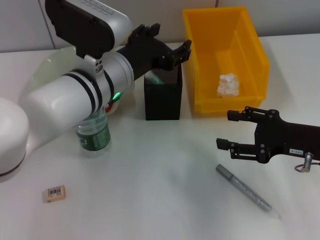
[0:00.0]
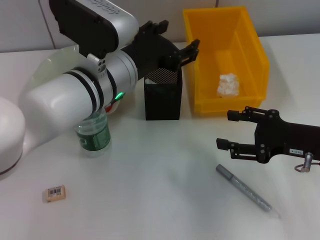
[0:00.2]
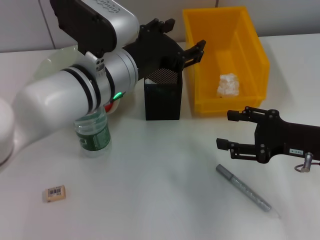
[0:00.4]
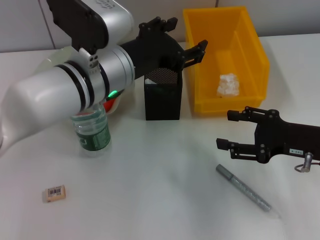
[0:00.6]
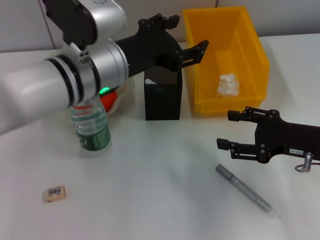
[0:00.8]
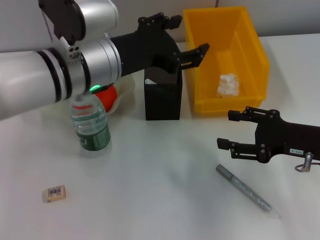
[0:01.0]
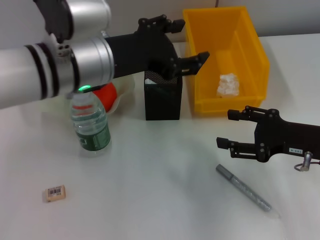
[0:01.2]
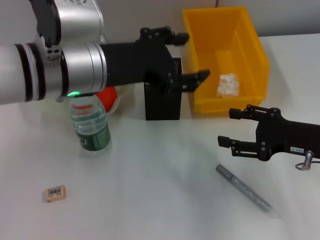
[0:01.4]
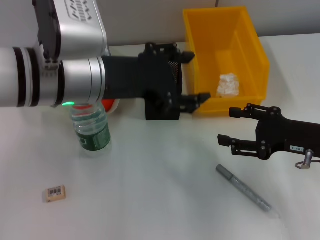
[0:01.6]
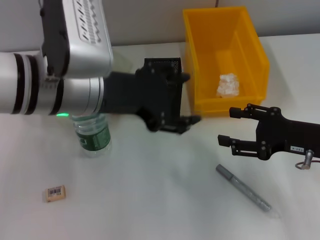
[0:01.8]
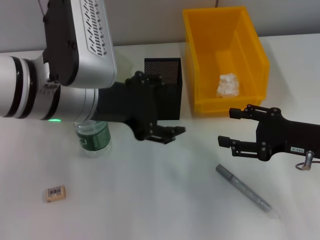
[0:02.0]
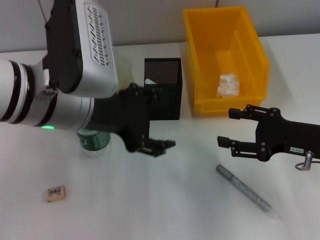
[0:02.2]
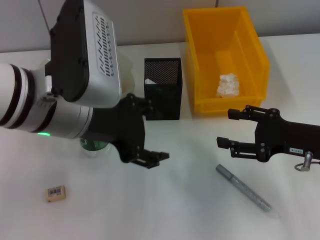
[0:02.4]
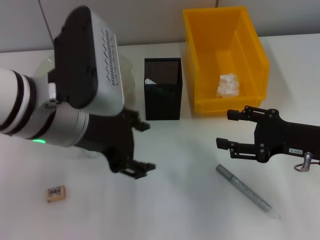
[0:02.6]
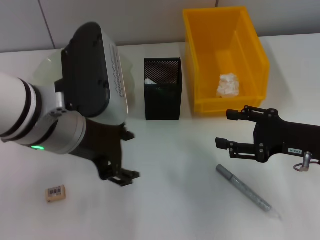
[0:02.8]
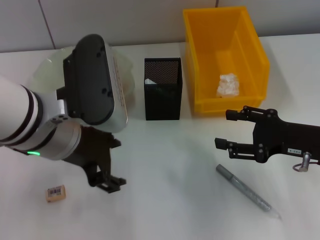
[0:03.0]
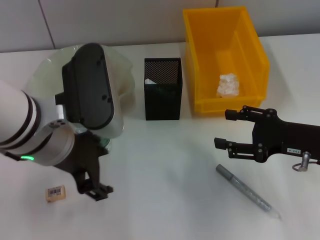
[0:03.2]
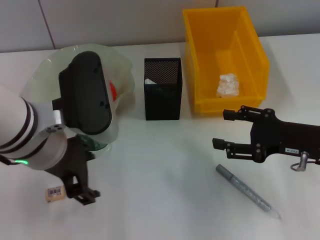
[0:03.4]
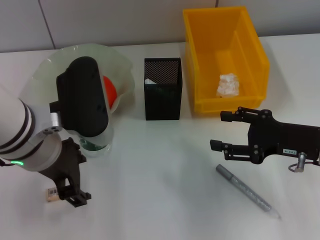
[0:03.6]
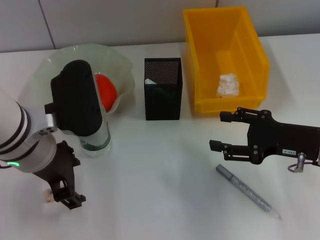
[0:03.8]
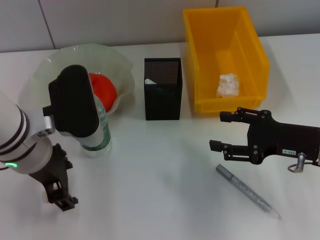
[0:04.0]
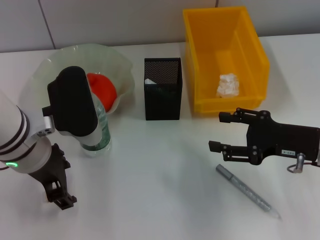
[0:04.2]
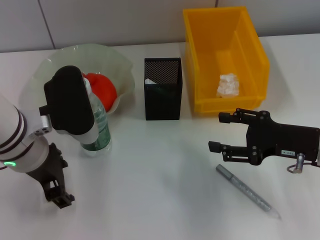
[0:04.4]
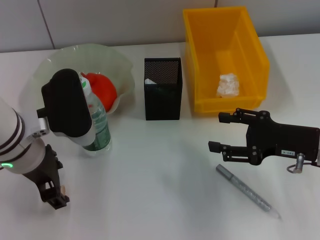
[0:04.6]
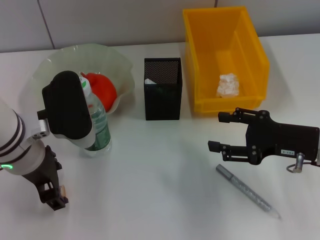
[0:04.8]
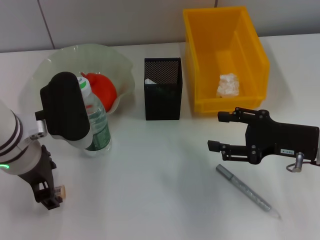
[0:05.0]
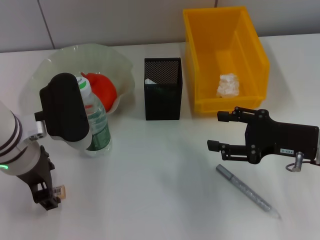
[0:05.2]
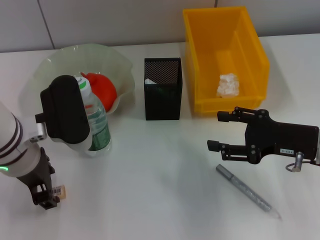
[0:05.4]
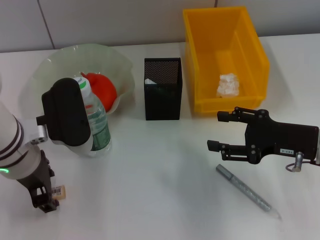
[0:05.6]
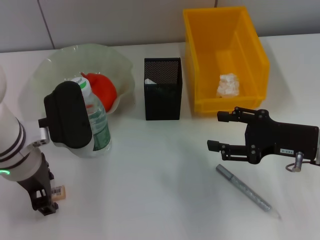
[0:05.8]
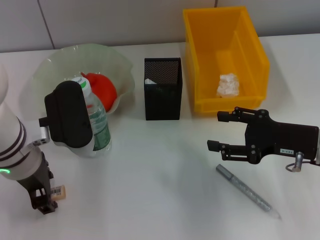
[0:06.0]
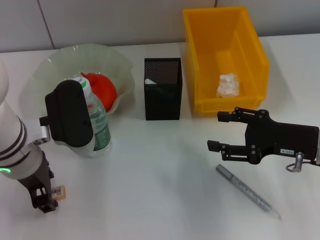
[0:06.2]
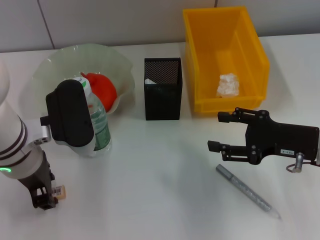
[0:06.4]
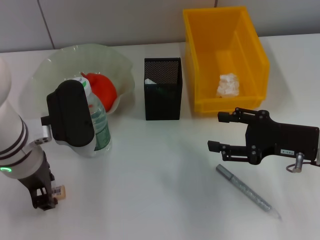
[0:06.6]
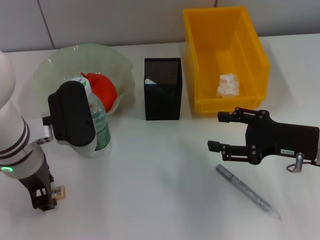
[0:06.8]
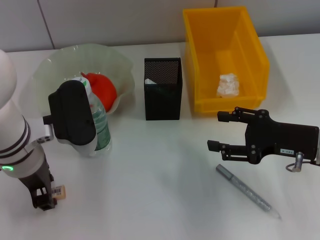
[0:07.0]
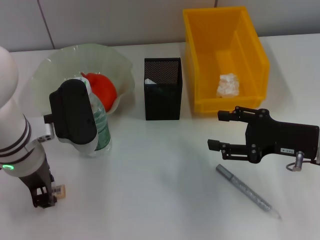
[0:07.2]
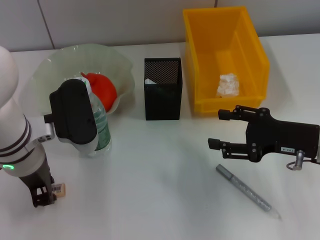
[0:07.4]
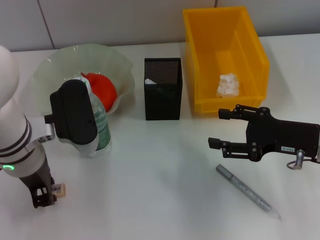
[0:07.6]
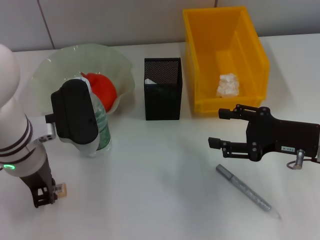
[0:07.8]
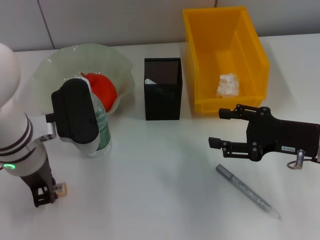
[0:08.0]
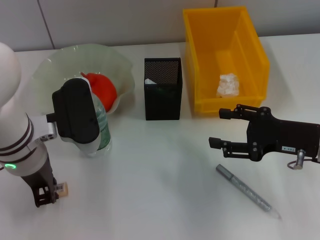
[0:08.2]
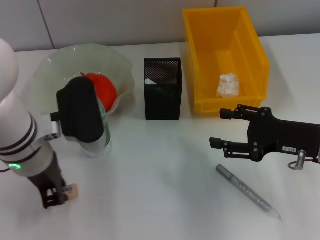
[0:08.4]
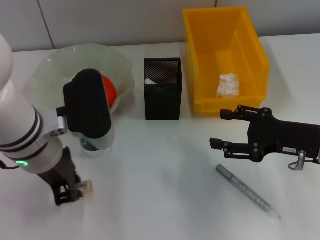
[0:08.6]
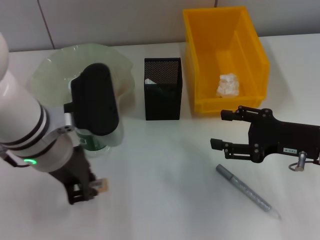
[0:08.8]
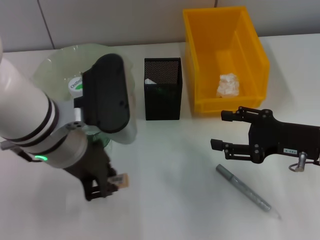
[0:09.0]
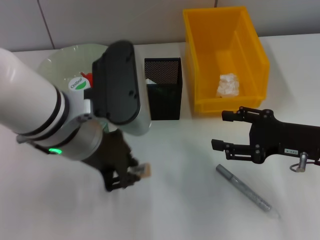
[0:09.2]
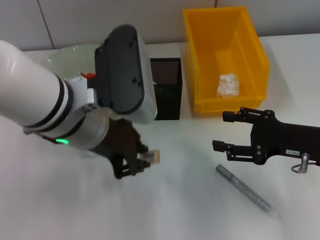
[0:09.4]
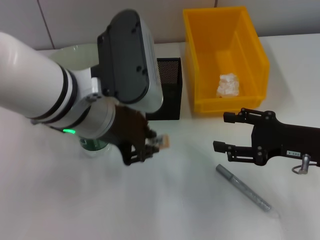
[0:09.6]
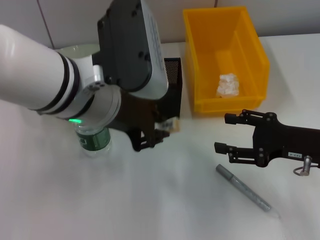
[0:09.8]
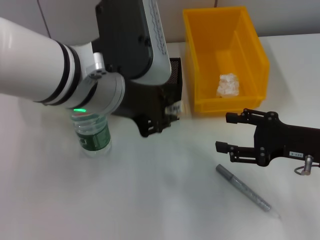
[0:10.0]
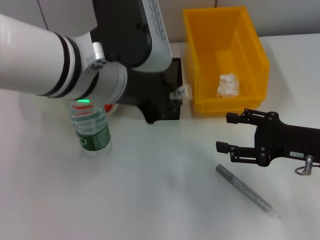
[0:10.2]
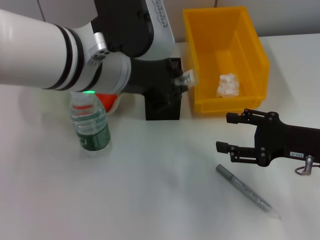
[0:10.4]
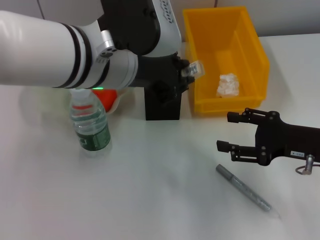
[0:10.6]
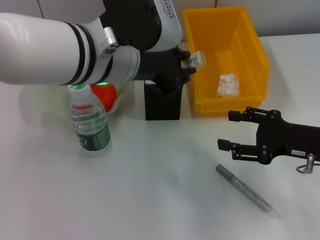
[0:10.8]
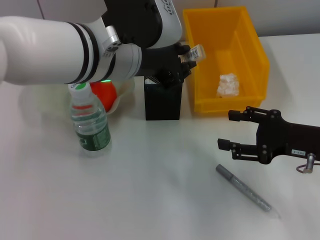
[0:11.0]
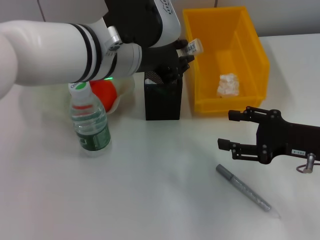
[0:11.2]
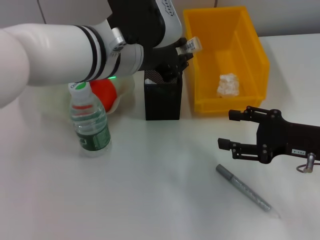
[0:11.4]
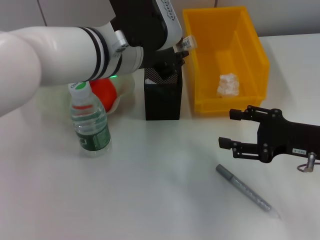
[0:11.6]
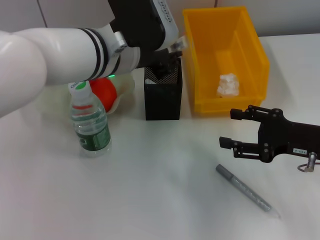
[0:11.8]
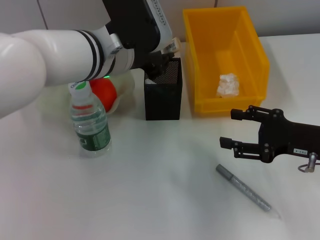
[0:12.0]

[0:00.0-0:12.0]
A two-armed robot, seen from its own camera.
Step, 0:00.6 to 0:07.6: Grab the eraser with the left hand.
0:00.0 to 0:01.6: The left gripper travels upward by some 5 cm.
0:03.0 to 0:04.4: The left gripper ends up about 5 cm from where it was.
0:04.4 to 0:06.0: The grippers stay close to where they were, moving slightly.
0:06.0 to 0:07.6: The left gripper closes up.
0:07.6 to 0:09.0: The left gripper shifts by roughly 5 cm.
0:09.0 to 0:10.4: The left gripper goes about 5 cm upward.
0:10.4 to 0:12.0: The left gripper shifts about 10 cm forward and downward.

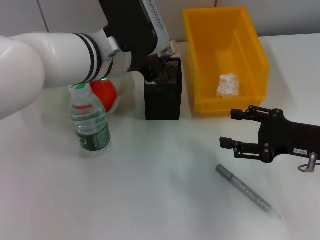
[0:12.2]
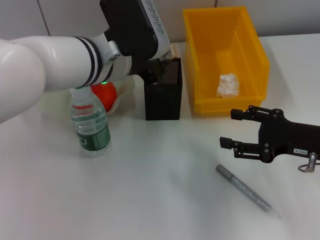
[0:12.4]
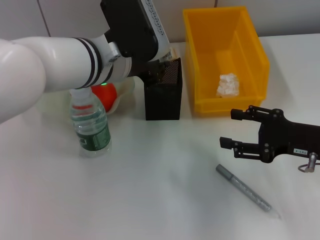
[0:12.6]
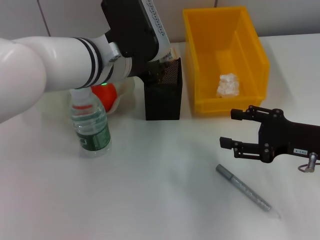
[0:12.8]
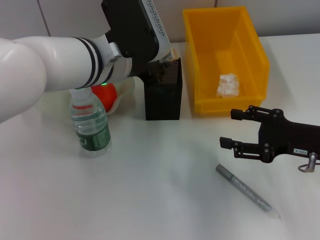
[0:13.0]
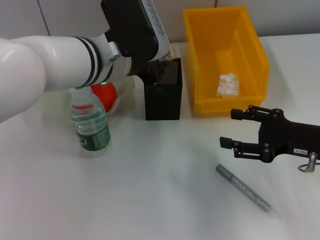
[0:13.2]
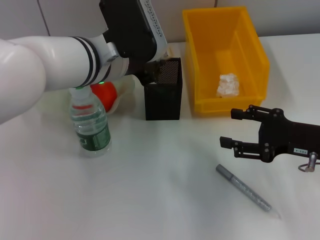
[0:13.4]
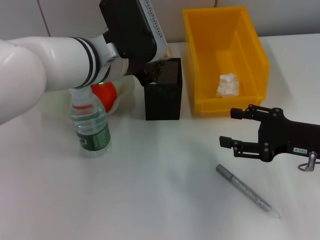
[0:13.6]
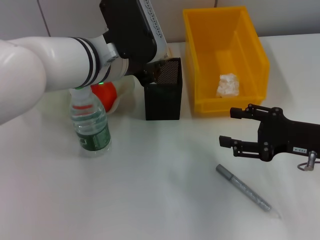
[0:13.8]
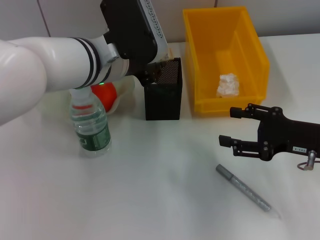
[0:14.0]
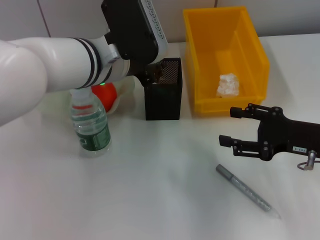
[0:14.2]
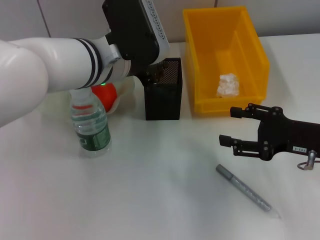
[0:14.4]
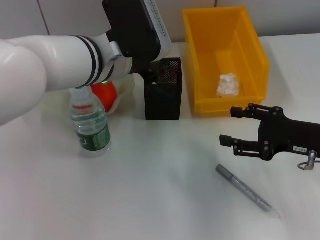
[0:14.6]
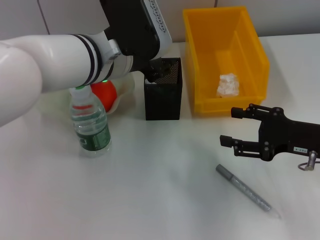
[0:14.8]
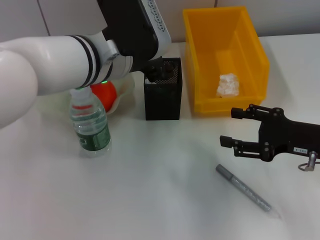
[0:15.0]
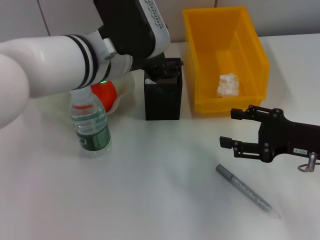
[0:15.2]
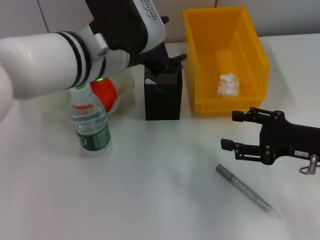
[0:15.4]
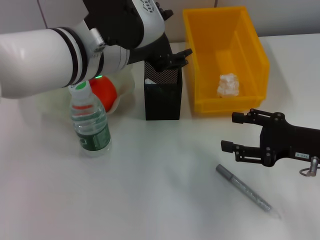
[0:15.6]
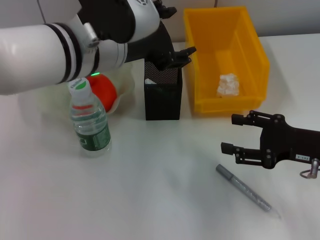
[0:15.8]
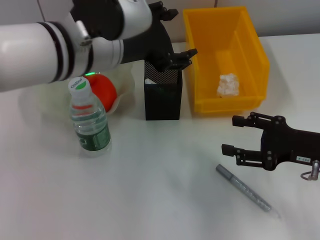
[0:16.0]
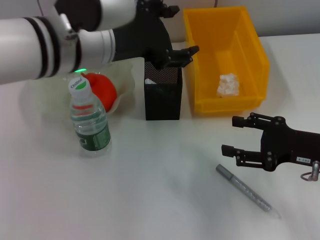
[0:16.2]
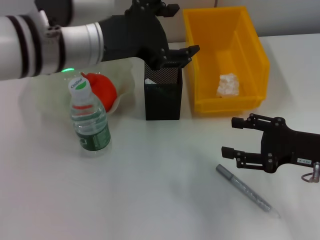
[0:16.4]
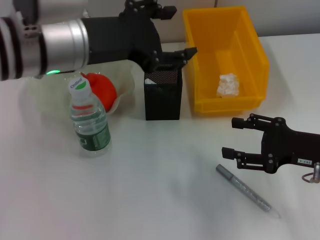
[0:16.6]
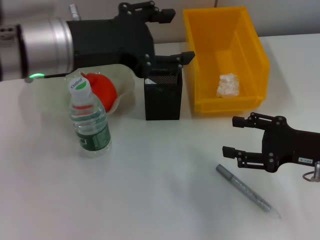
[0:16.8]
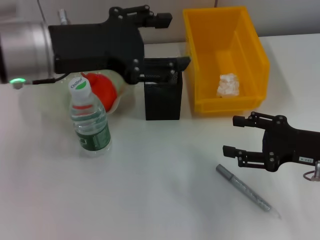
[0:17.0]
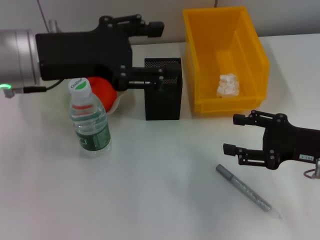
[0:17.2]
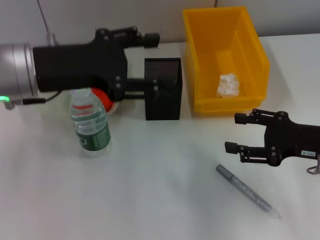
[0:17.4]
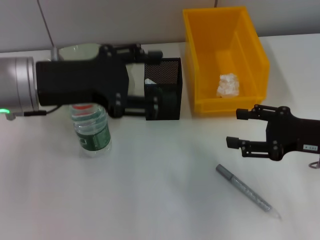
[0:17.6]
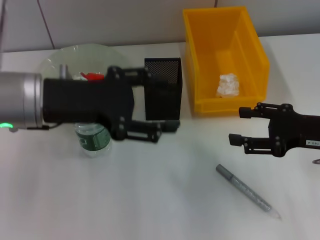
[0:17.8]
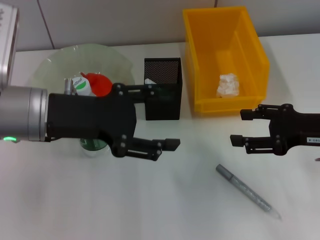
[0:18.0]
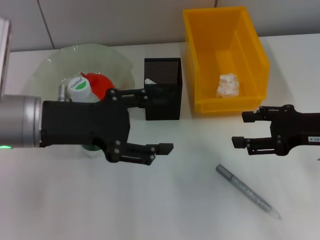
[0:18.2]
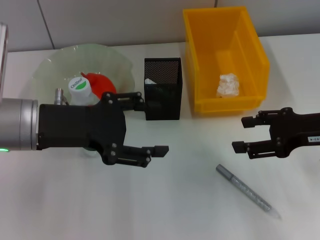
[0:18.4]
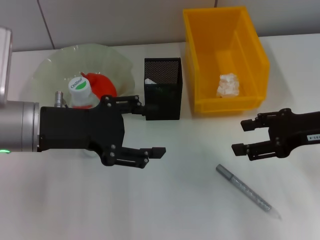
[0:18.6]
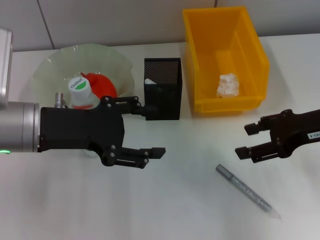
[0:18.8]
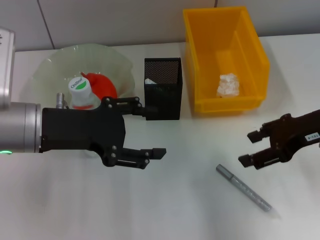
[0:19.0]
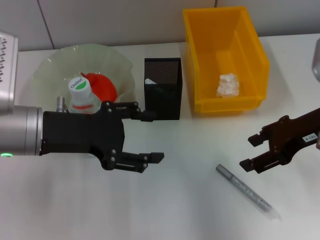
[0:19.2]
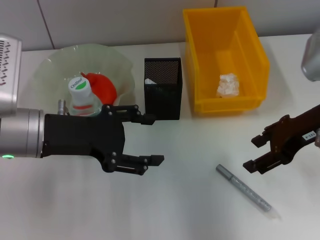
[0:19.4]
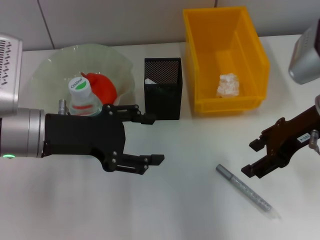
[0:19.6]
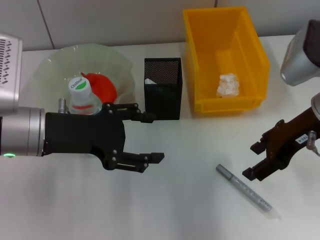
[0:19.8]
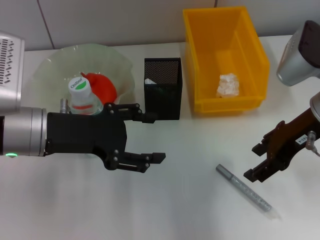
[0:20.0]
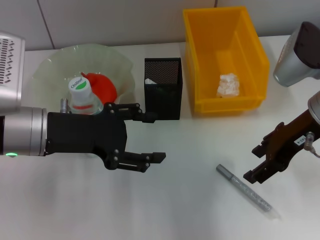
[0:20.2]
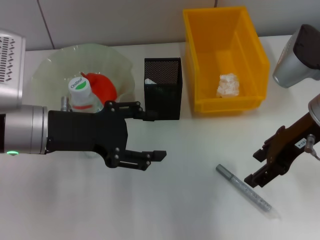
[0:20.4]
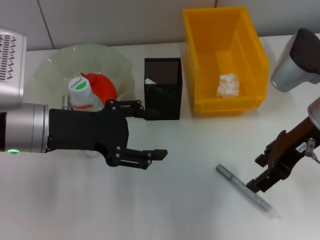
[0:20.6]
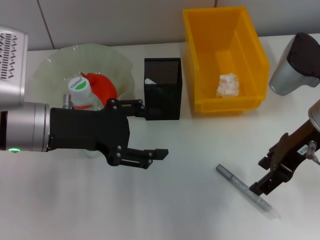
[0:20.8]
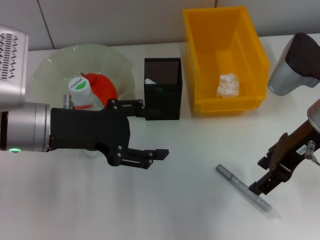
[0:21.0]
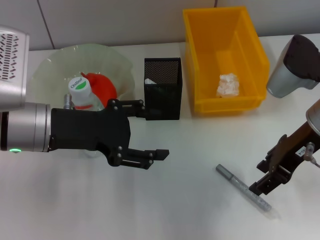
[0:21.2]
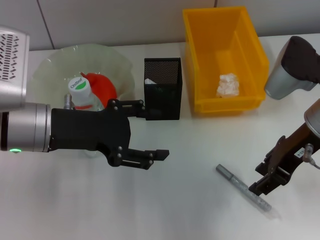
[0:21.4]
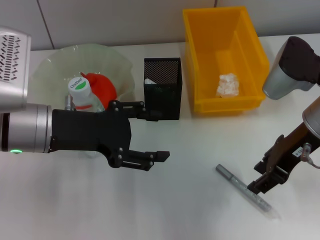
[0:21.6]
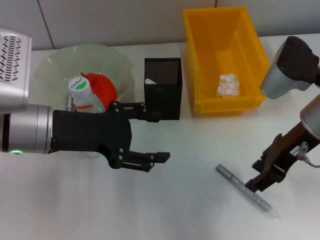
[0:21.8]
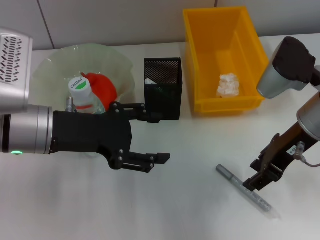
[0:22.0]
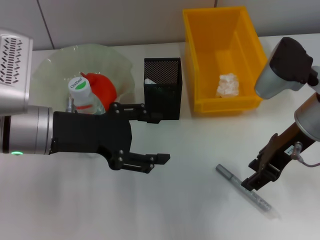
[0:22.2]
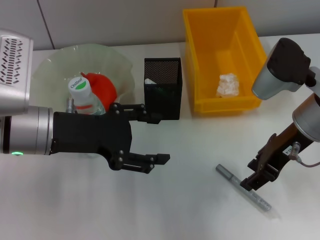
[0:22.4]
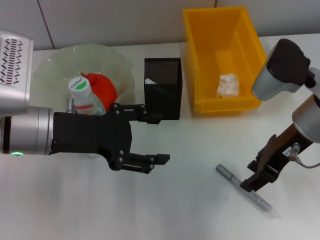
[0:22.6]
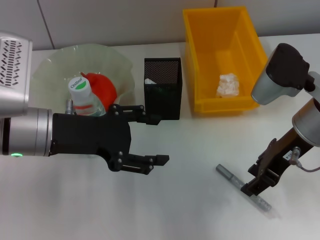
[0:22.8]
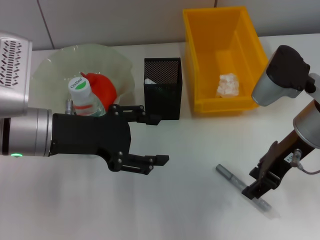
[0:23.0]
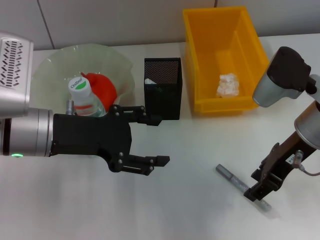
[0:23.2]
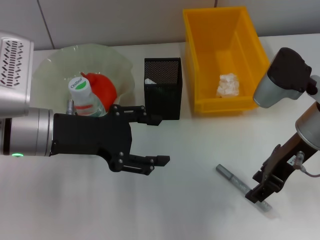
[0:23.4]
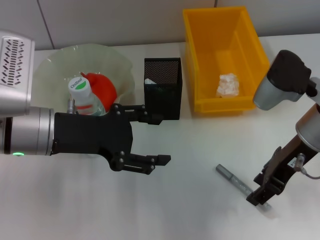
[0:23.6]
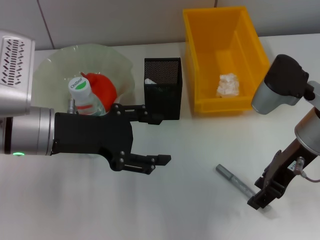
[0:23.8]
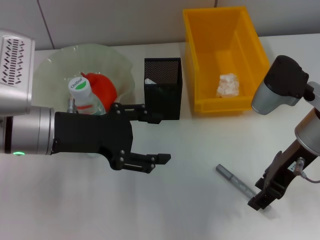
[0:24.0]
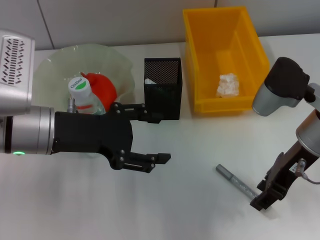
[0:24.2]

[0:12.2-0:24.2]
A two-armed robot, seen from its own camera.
Step, 0:12.2 to 0:14.6: Place the eraser into the pen holder with the left hand.
0:12.2 to 0:13.8: Both grippers stay put.
0:13.8 to 0:15.2: The left gripper opens up.
0:15.2 to 0:16.6: The left gripper heads to the left, covering about 5 cm.
0:16.6 to 0:18.2: The right gripper moves roughly 5 cm. The left gripper shifts approximately 10 cm downward and to the left.
0:18.2 to 0:19.8: The right gripper shifts some 5 cm to the left.
0:19.8 to 0:24.2: There are only small adjustments of the grippers.
